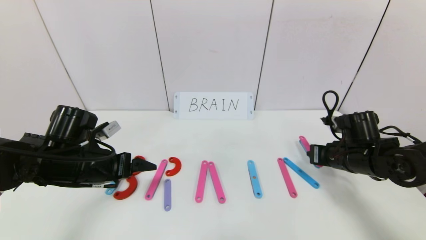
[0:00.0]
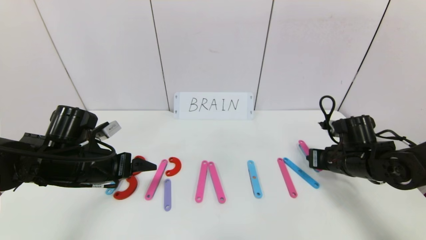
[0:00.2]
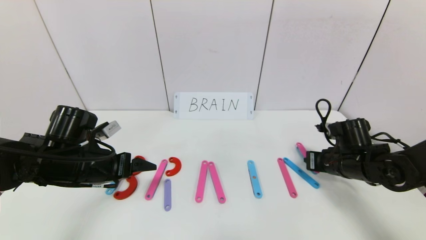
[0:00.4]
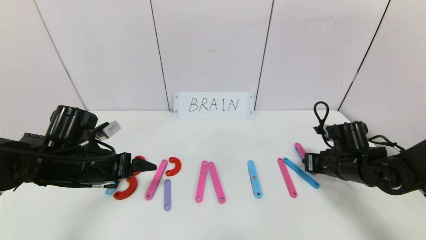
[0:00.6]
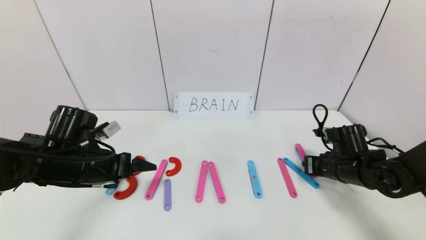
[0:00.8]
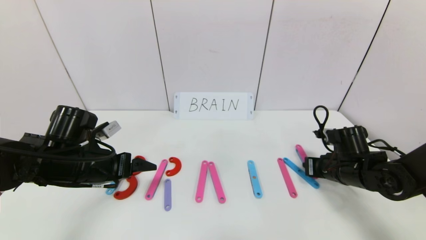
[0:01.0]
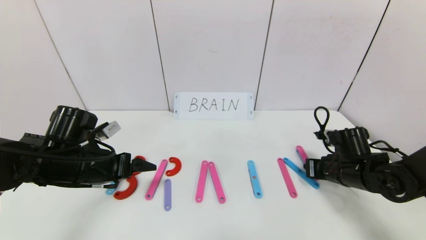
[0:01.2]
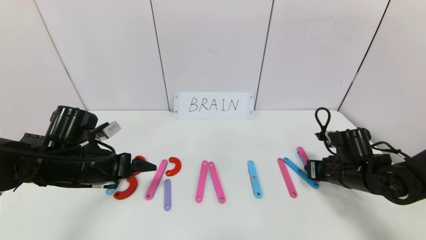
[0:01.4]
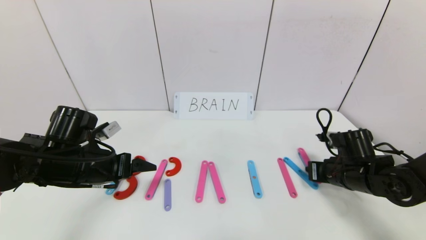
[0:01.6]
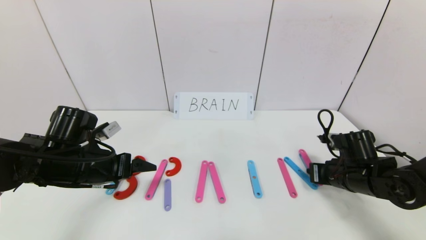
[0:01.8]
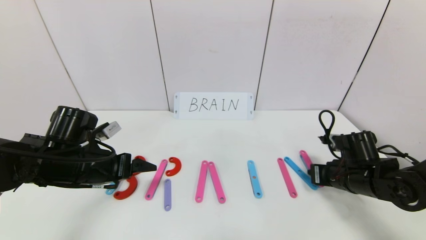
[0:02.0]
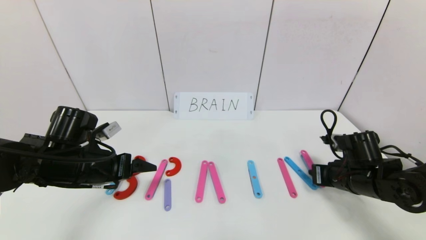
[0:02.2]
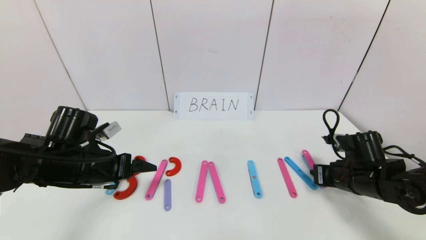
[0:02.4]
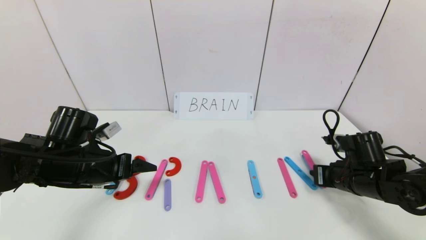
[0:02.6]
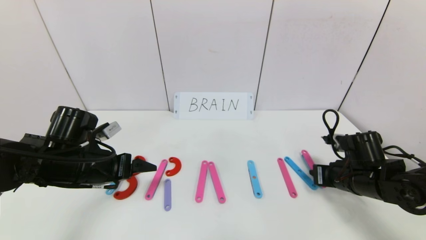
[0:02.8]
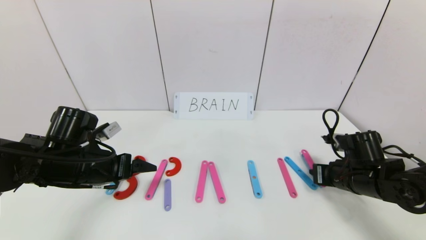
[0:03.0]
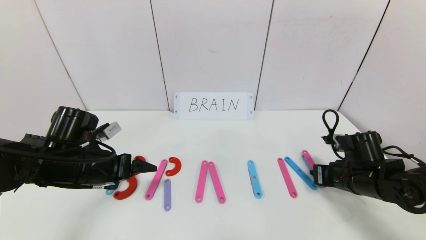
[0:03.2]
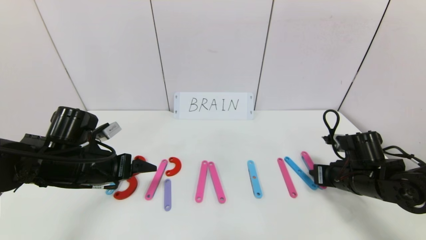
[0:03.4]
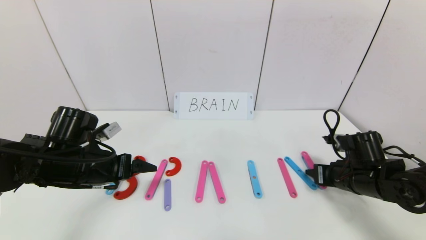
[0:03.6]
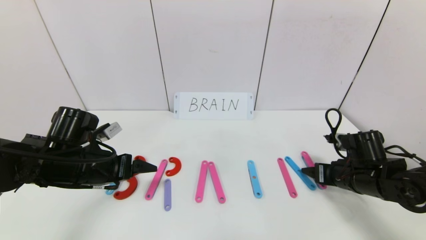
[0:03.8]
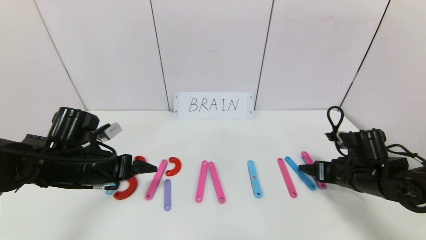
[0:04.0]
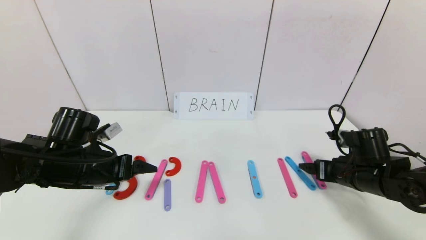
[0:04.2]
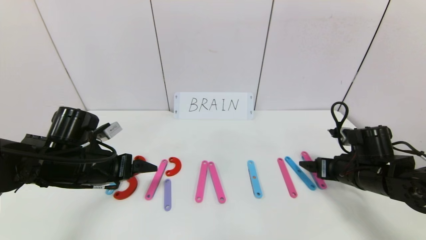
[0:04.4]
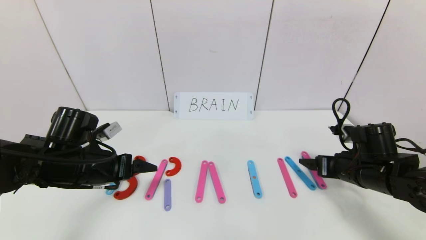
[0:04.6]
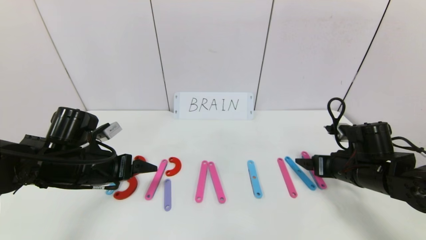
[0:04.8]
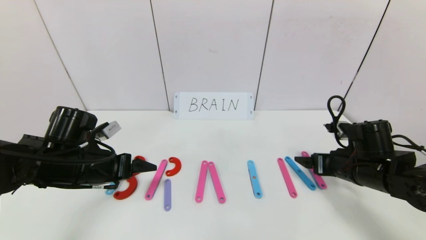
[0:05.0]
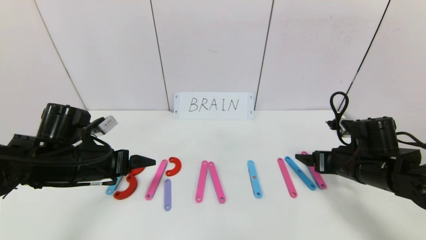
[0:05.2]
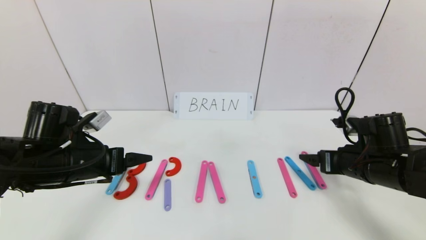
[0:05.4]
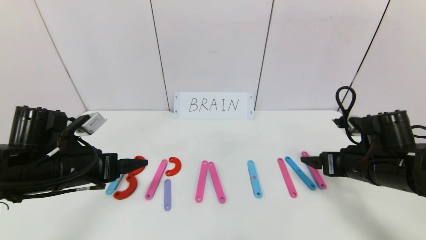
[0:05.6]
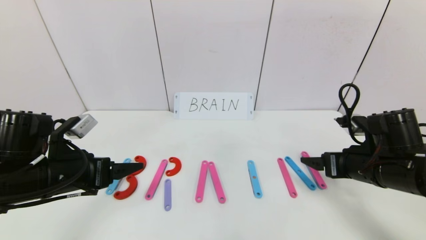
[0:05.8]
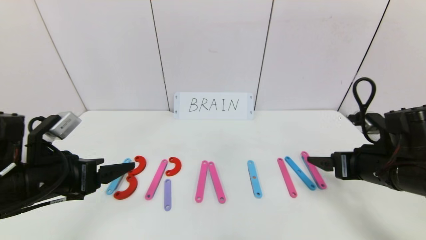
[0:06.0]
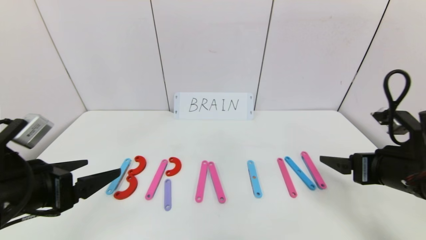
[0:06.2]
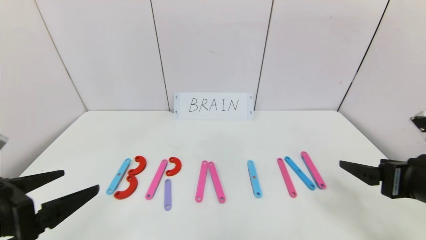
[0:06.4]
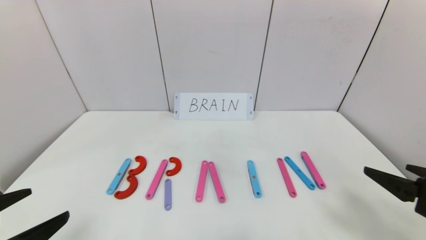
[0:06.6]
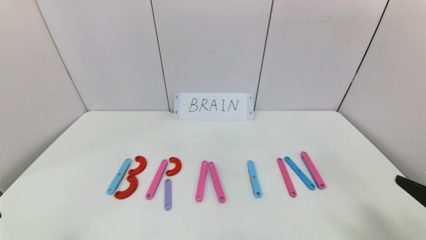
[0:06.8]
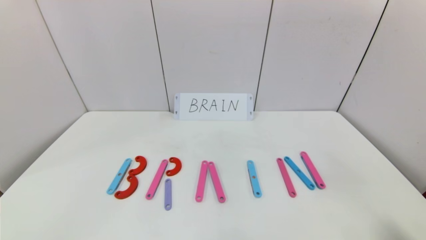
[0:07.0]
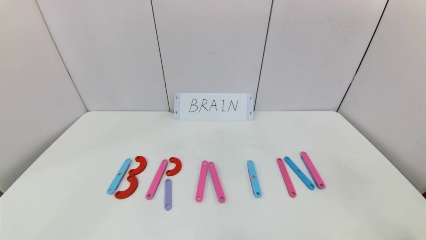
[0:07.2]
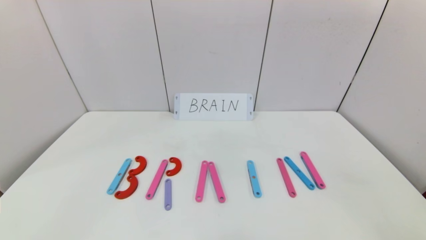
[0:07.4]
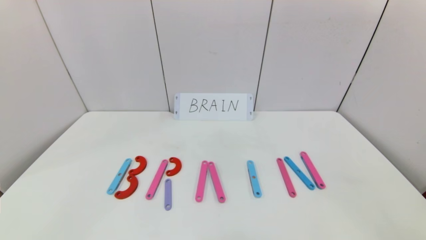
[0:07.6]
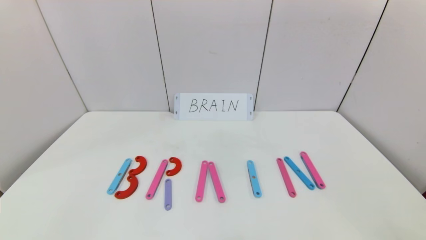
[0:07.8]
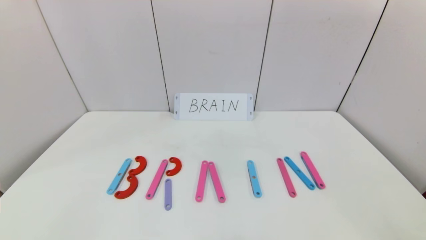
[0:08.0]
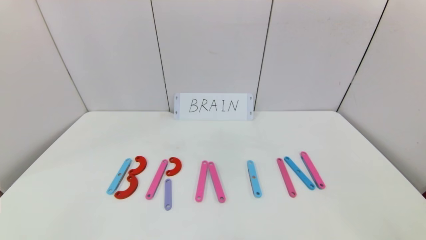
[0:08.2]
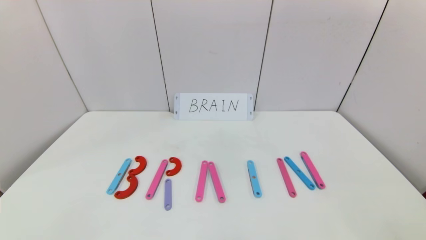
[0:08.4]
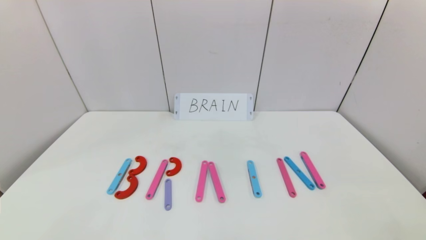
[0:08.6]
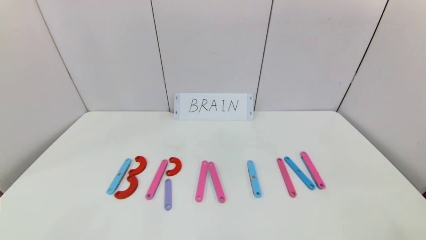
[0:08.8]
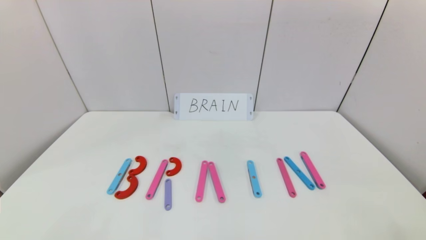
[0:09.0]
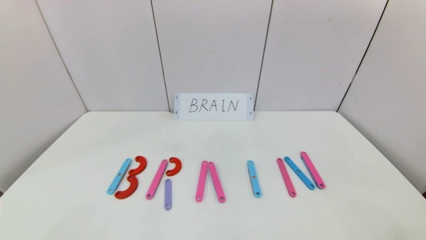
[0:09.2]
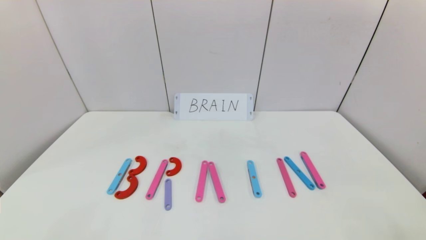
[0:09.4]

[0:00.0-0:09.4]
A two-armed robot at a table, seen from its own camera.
Task of the whole recording: rearrange the word baai as brain.
Step, 0:00.0 to 0:04.4: Place the character N after character I.
0:00.0 to 0:03.2: The grippers move only a little.
0:03.2 to 0:04.8: The right gripper opens.
0:04.8 to 0:06.2: The grippers both shift backward and upward by approximately 10 cm.
0:06.2 to 0:07.8: Both grippers travel together backward, some 20 cm.
